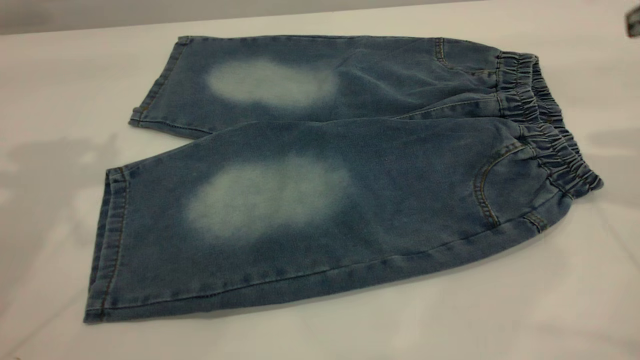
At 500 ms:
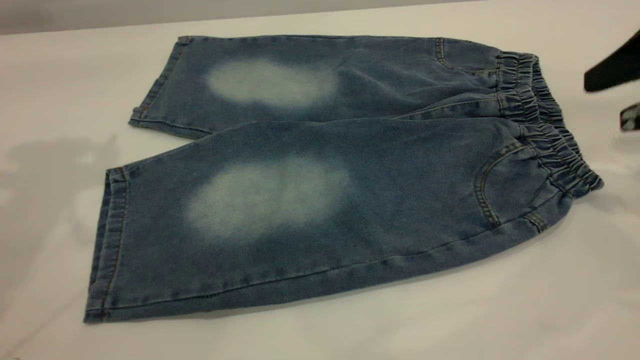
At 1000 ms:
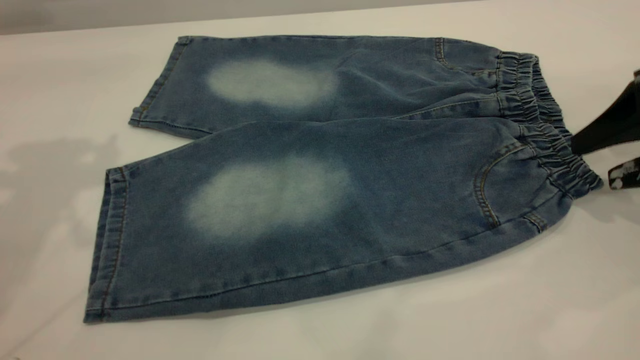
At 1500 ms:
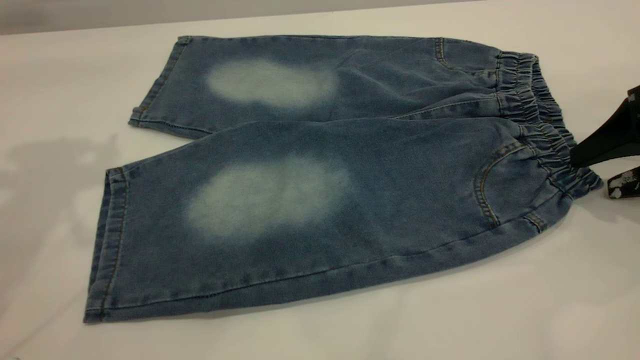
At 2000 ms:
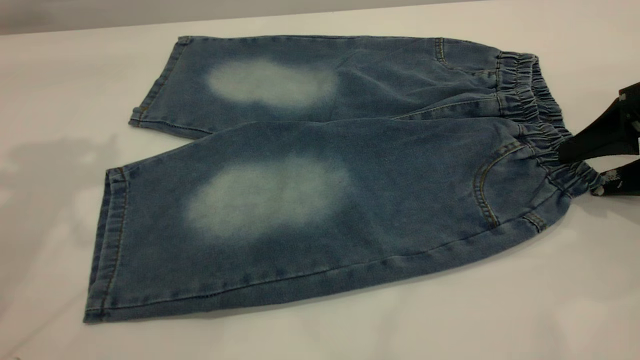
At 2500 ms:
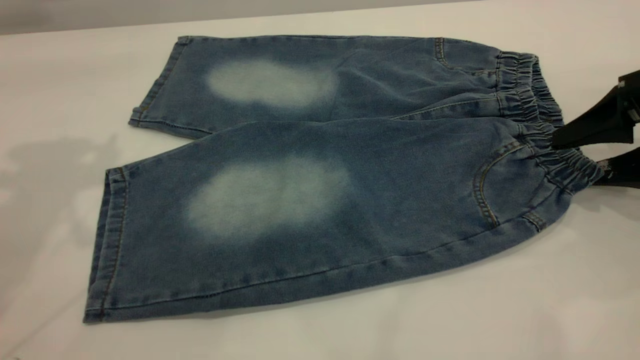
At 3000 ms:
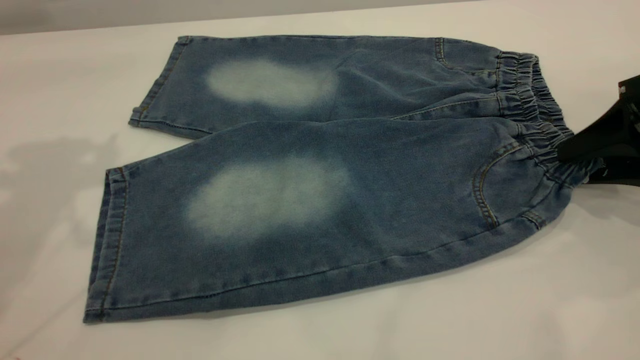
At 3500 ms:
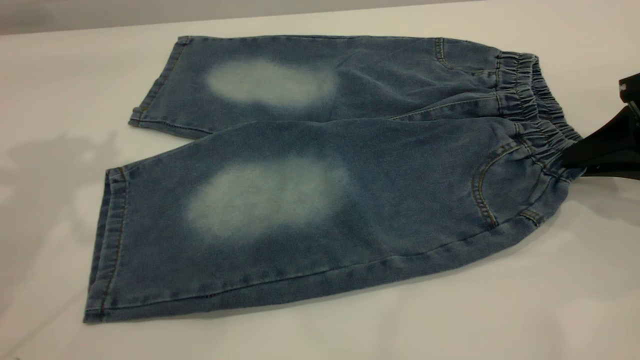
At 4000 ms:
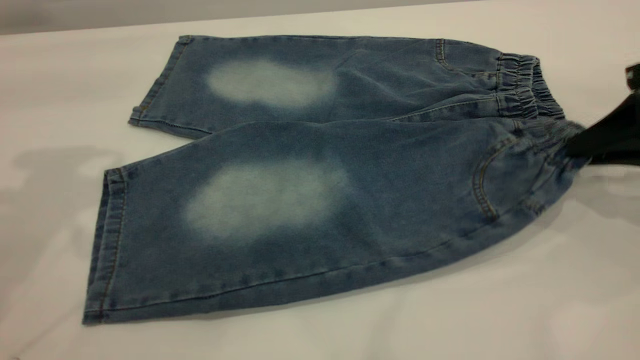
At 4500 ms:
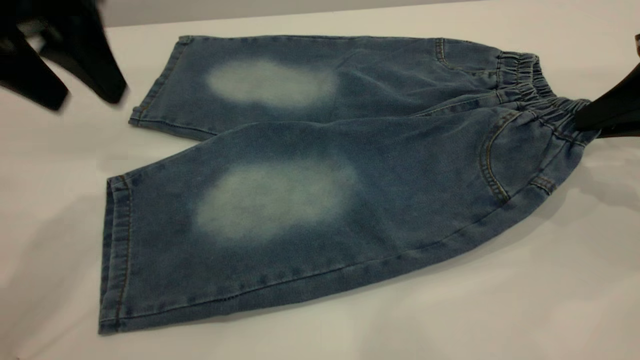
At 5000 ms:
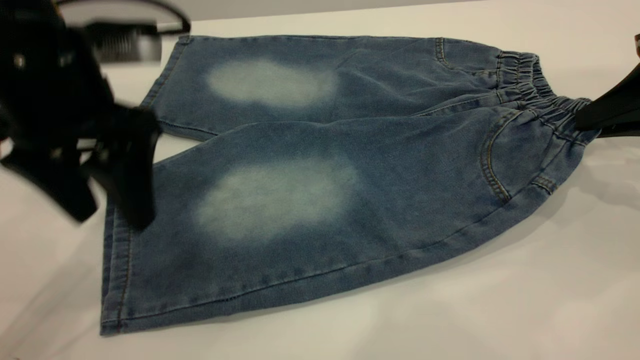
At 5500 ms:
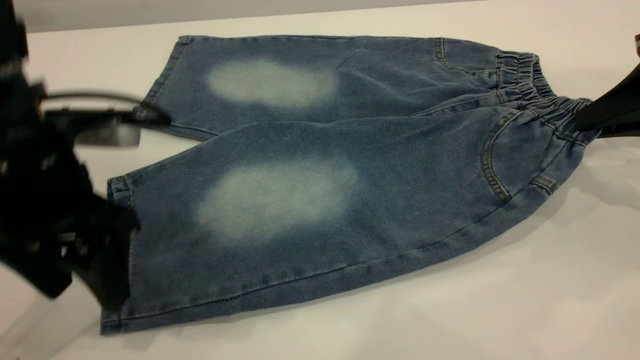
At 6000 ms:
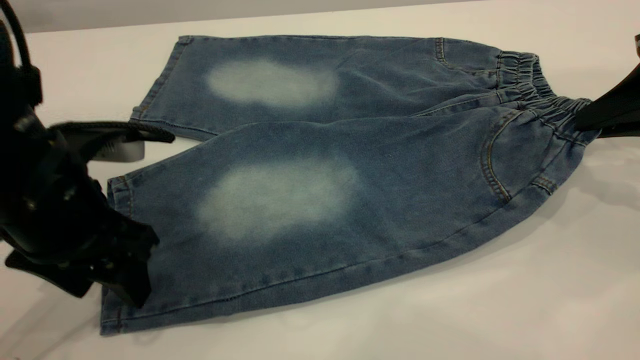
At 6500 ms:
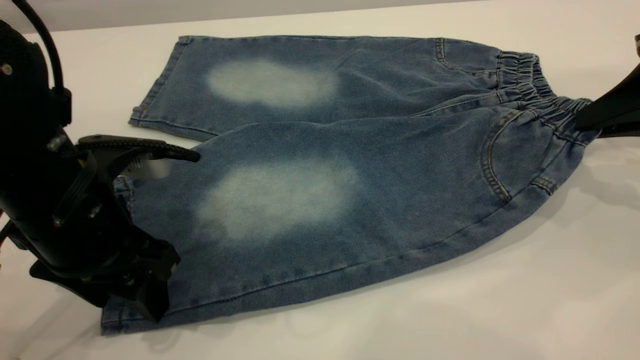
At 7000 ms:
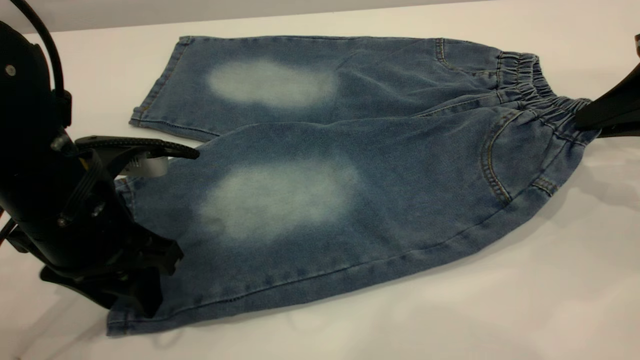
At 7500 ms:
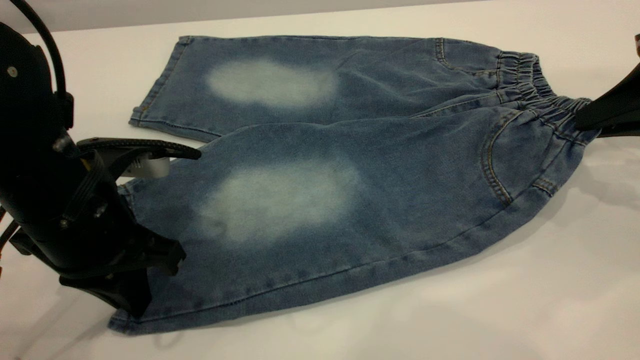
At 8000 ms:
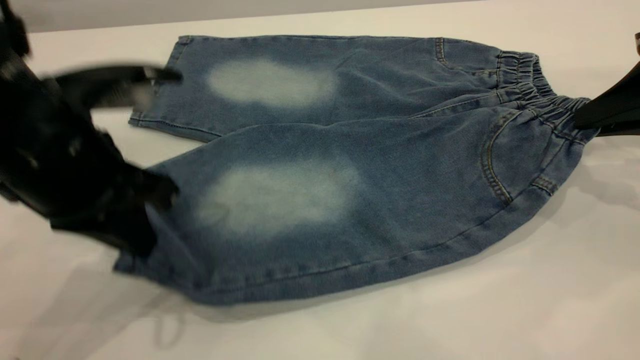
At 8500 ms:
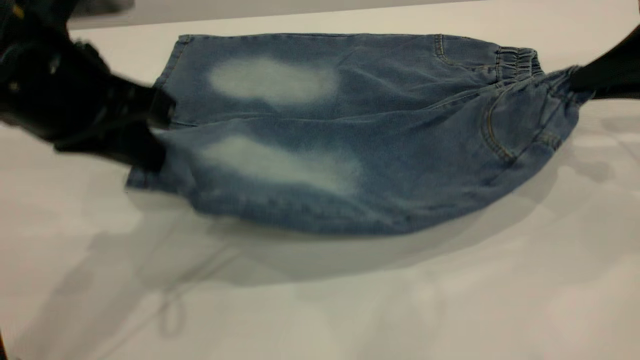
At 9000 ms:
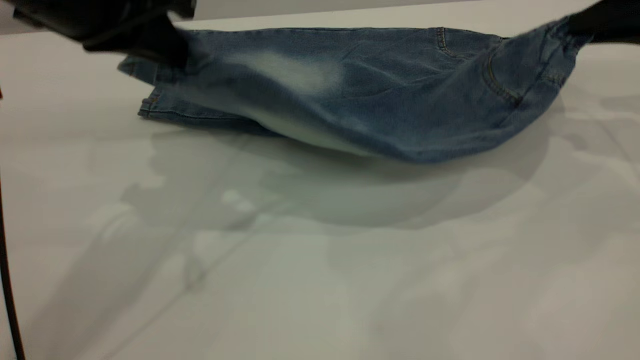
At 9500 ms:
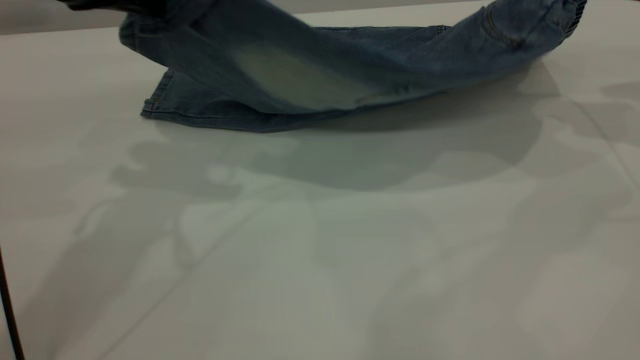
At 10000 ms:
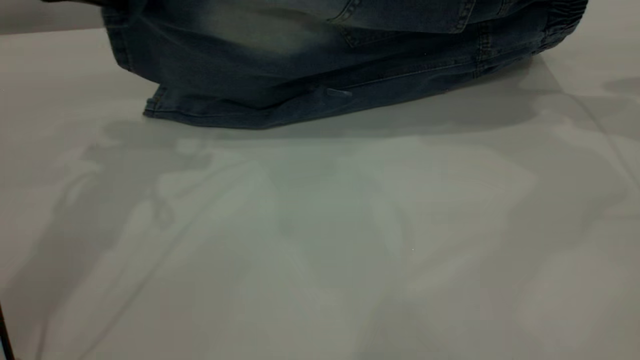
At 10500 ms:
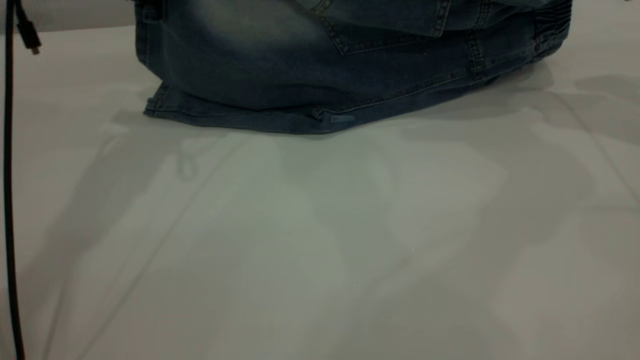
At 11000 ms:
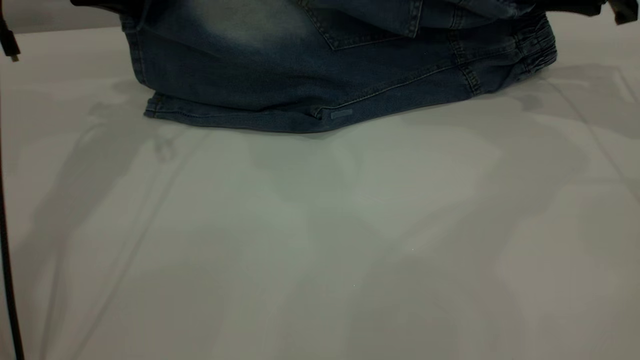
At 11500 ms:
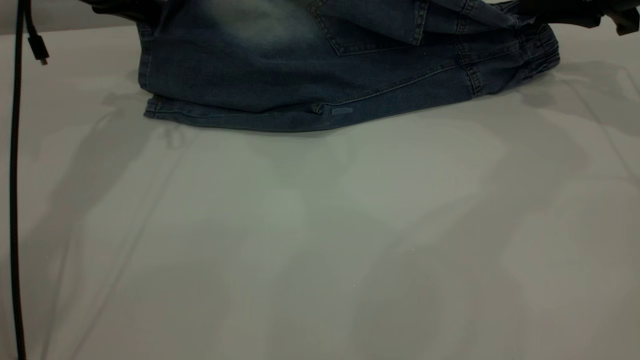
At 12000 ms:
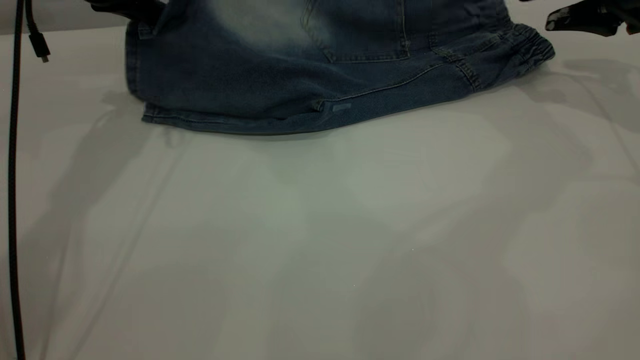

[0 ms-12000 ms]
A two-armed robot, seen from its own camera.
0 ms to 2000 ms: The right gripper heads downward, covering about 15 cm.
2000 ms to 4000 ms: The right gripper closes its fingers.
4000 ms to 6000 ms: The left gripper heads downward, covering approximately 20 cm.
6000 ms to 8000 ms: The left gripper ends up approximately 5 cm from where it was, and closes its fingers.
8000 ms to 10000 ms: Both grippers move forward and upward, approximately 15 cm.
10000 ms to 12000 ms: The right gripper changes place by some 5 cm, and opens its fingers; the left gripper shifts roughly 10 cm forward.

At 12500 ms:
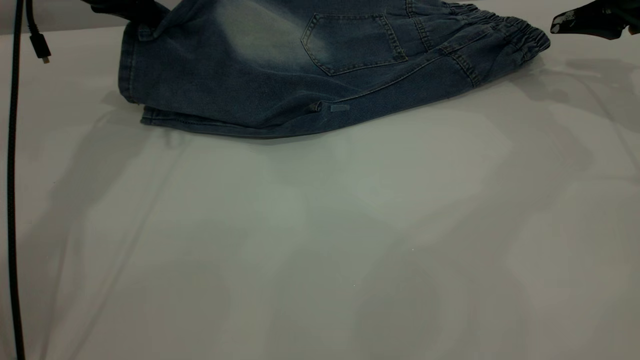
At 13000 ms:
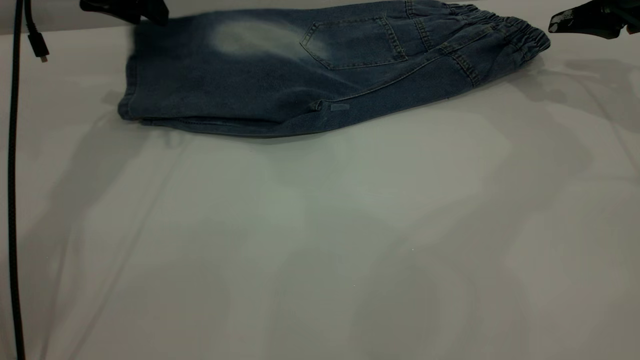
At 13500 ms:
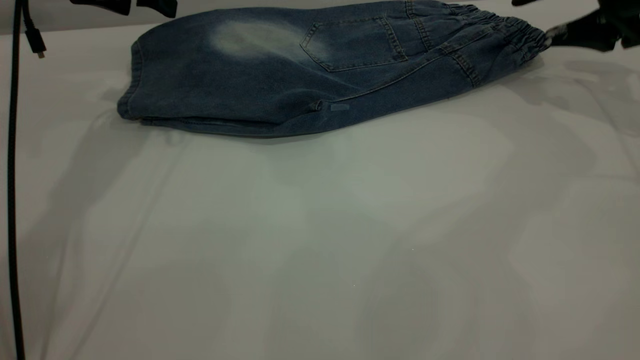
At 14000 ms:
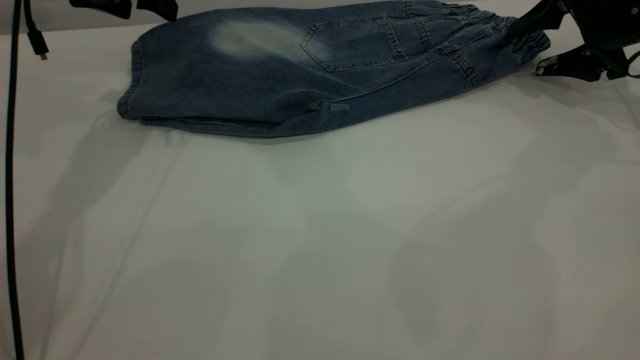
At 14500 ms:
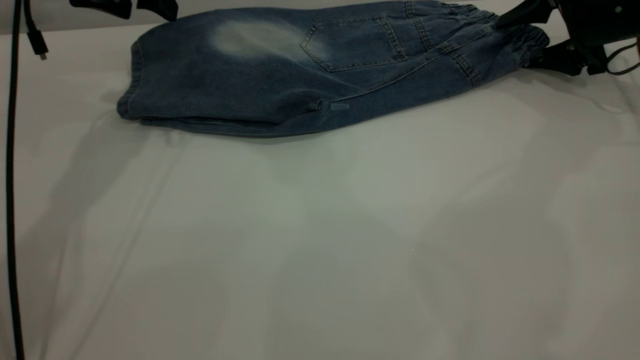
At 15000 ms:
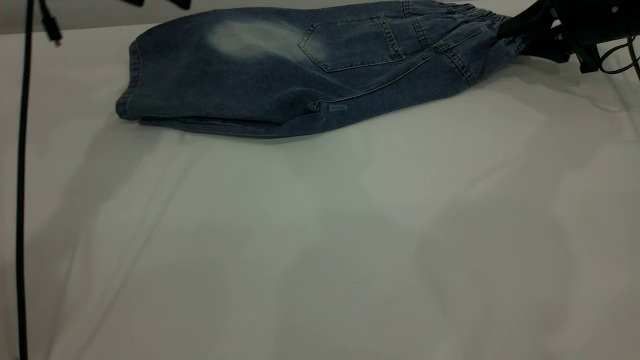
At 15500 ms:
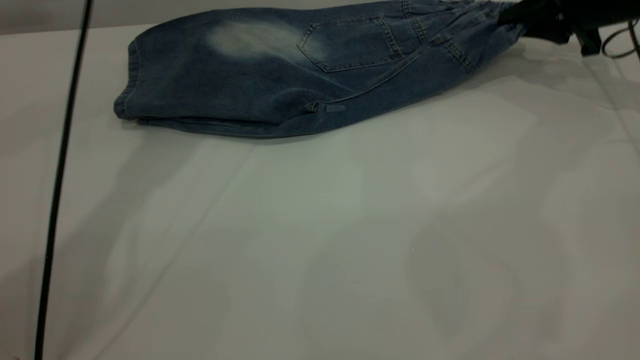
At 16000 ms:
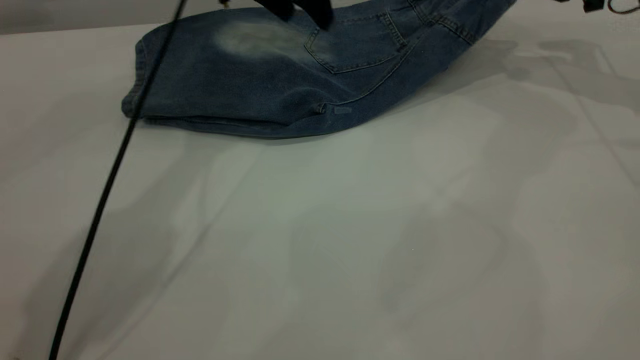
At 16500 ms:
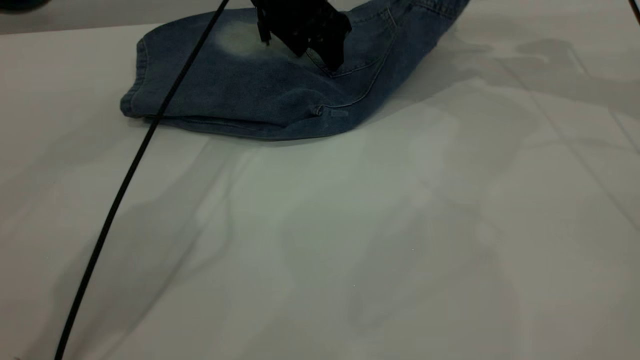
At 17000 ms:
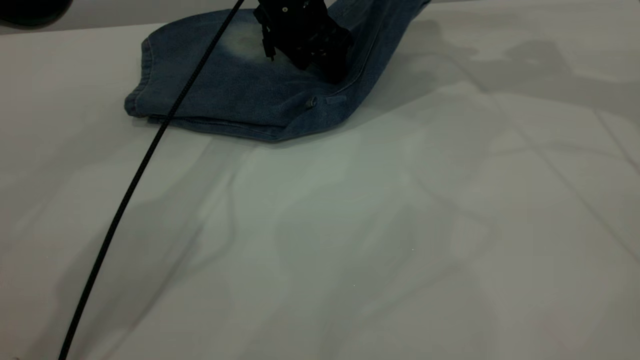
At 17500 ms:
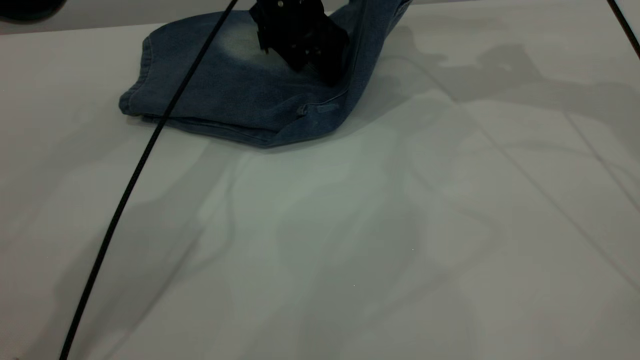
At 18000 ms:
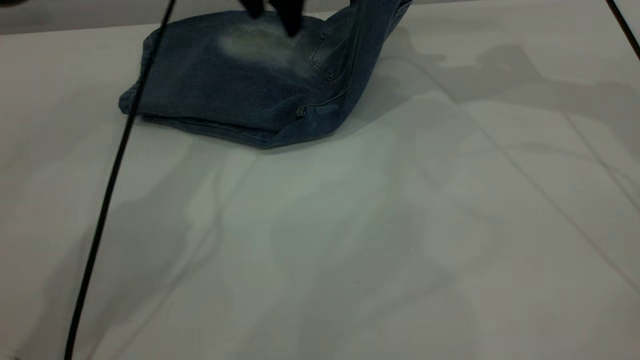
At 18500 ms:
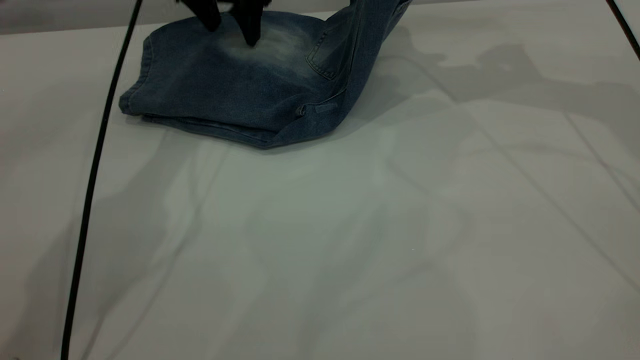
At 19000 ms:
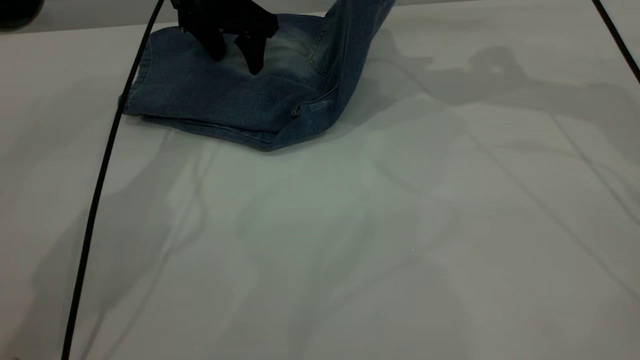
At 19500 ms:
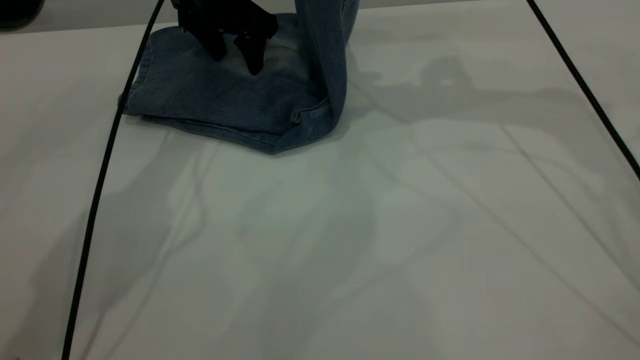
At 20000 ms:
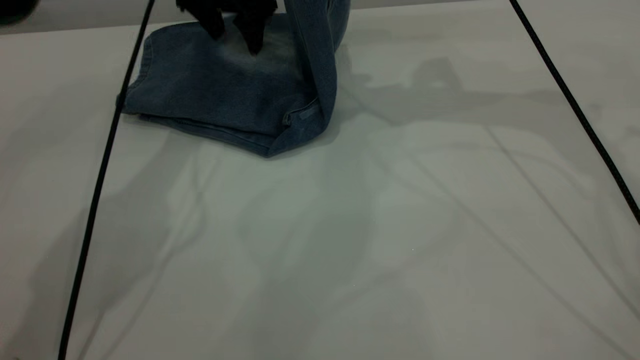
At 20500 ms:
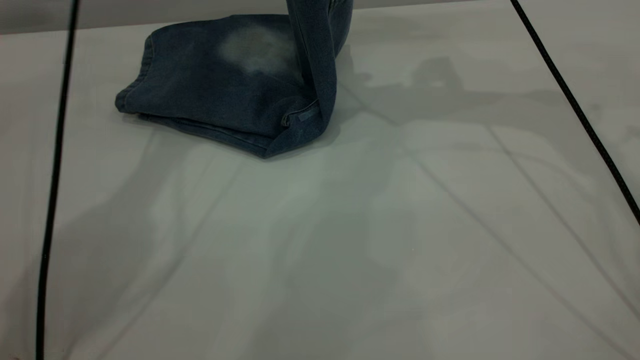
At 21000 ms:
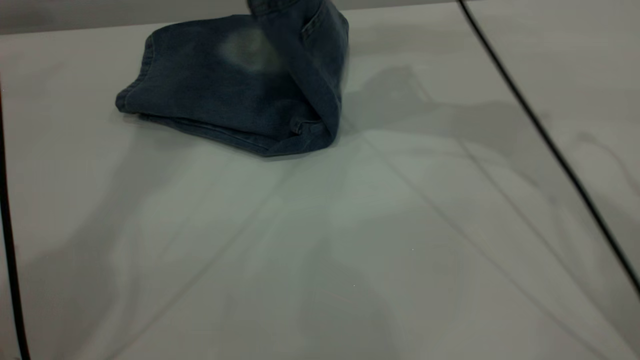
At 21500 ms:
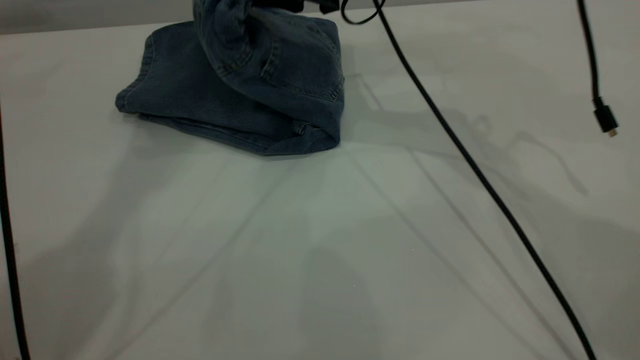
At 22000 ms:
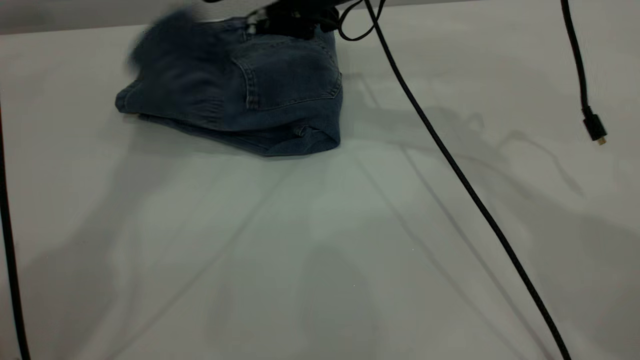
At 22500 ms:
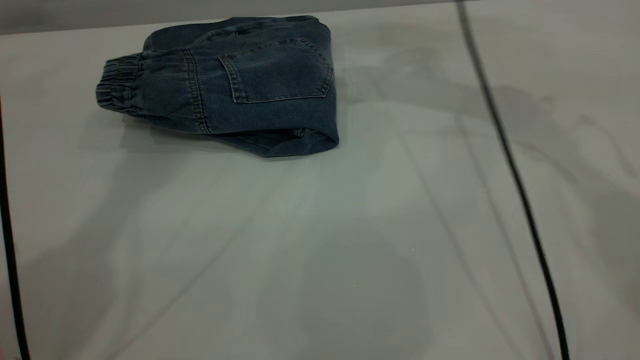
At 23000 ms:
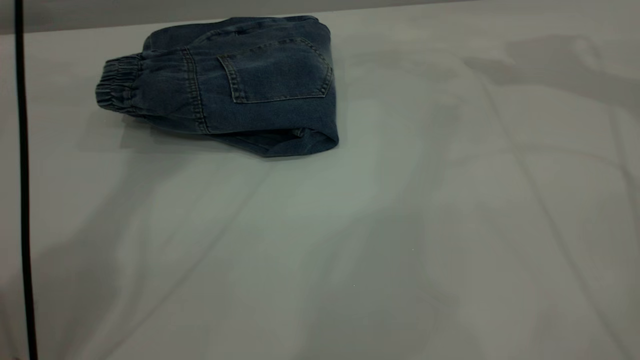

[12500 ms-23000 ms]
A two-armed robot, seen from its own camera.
Step, 13500 ms to 22500 ms: Fold your pants from right to left.
12500 ms to 14500 ms: The left gripper opens; the right gripper goes about 5 cm downward.
14500 ms to 16500 ms: The left gripper is displaced to the right by approximately 20 cm. Meanwhile the right gripper goes roughly 10 cm upward and to the left, and closes its fingers.
16500 ms to 19000 ms: The left gripper is displaced to the left by roughly 10 cm, while the right gripper moves to the left and upward, some 10 cm.
19000 ms to 21000 ms: The left gripper heads upward, covering approximately 30 cm; the right gripper is displaced to the left by approximately 10 cm.
21000 ms to 23000 ms: The left gripper heads downward, covering about 5 cm; the right gripper goes approximately 20 cm to the right, and opens.
